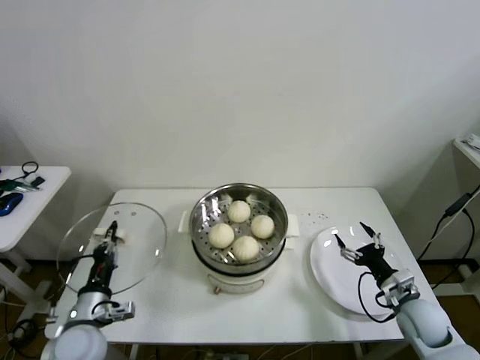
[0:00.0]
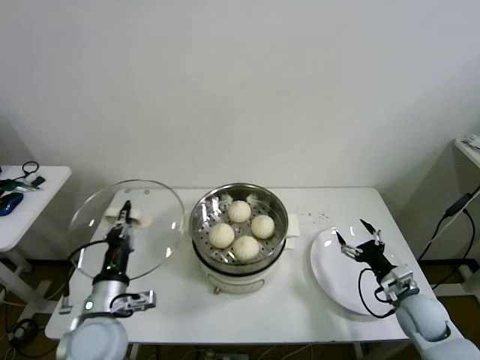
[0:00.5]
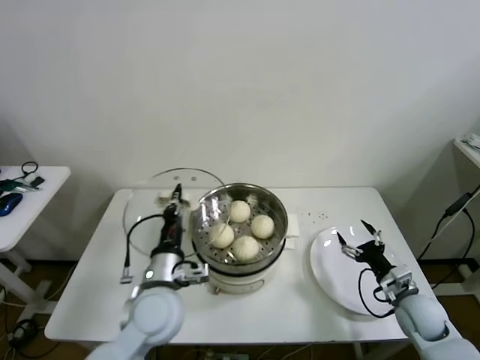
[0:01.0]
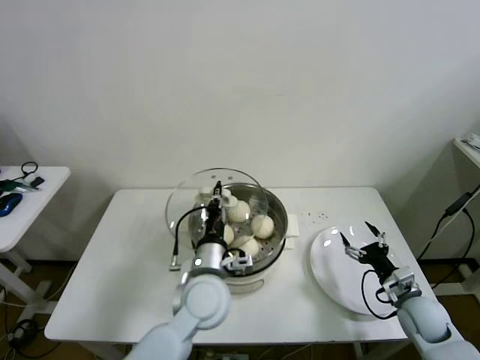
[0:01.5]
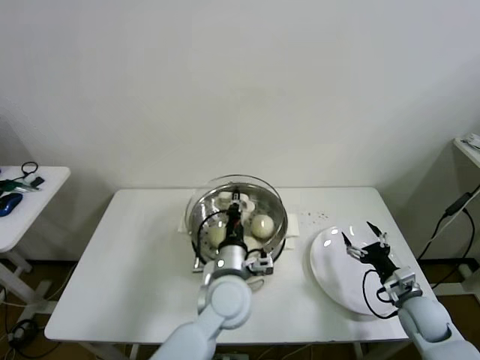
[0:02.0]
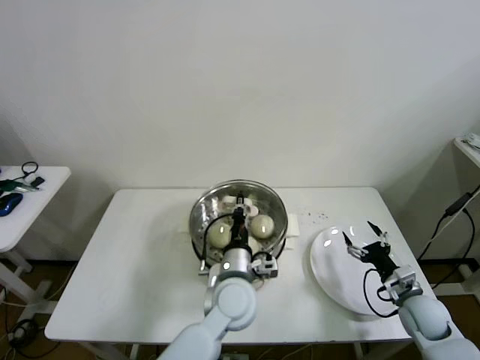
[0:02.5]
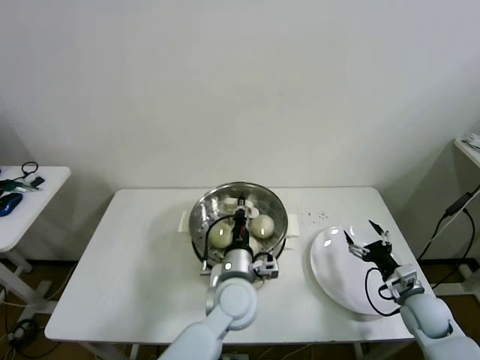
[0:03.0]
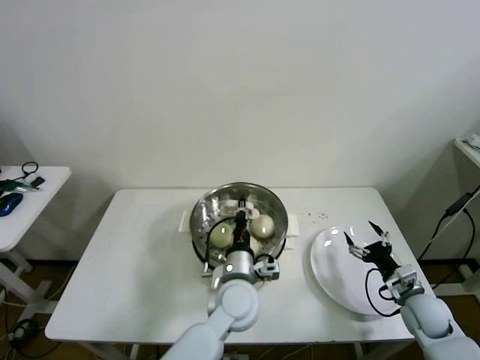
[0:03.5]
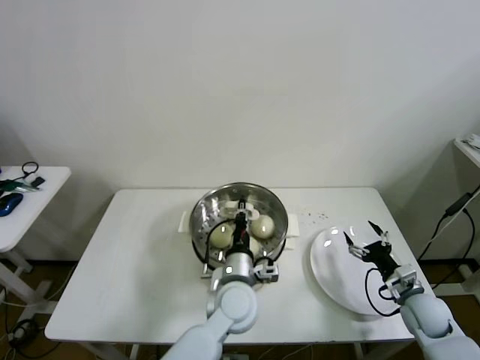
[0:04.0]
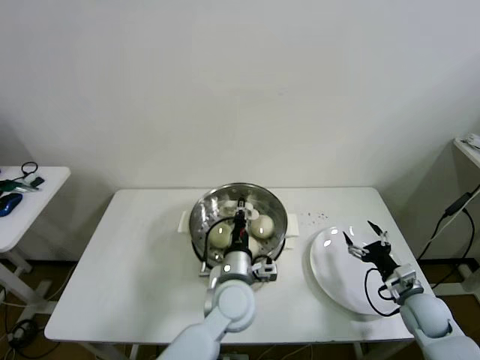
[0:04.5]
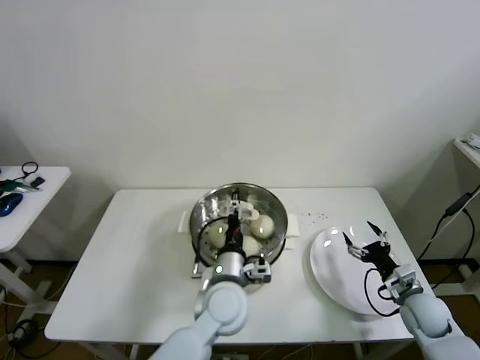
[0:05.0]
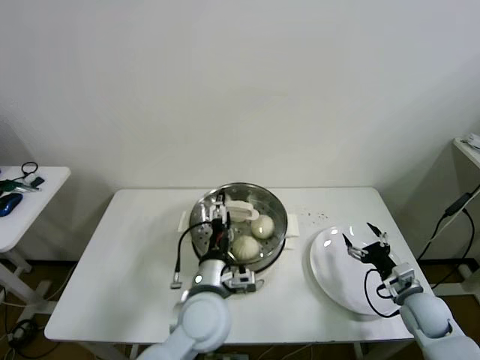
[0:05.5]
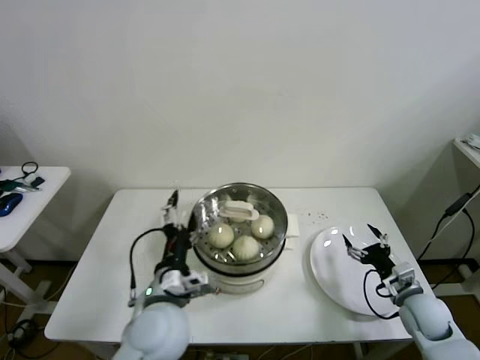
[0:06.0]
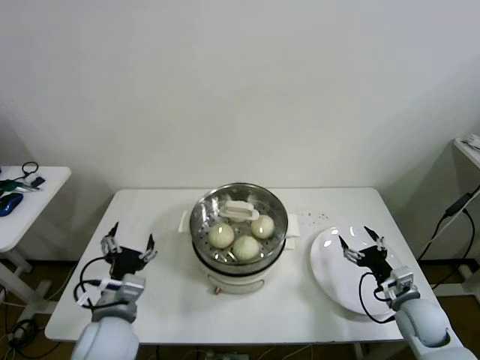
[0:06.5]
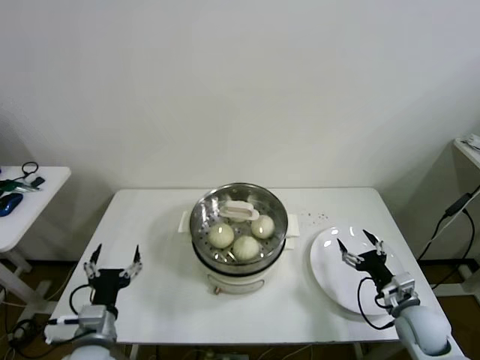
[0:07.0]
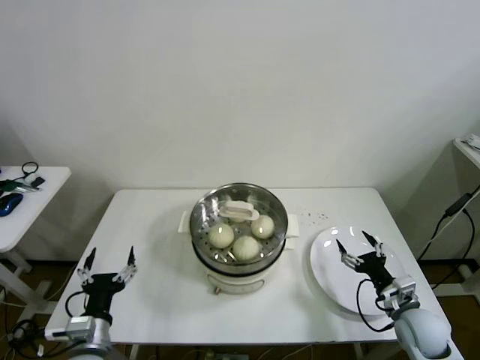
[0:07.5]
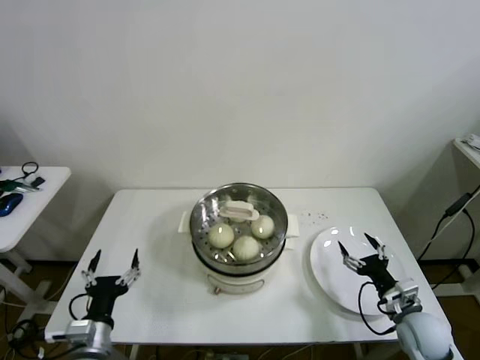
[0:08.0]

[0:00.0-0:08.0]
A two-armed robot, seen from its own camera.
Step, 0:00.0 to 0:04.5: Place the pot lid on the steamer with left gripper.
0:00.0 to 0:02.0: The left gripper moves to the right, roughly 30 cm.
0:02.0 to 0:04.0: There are only small adjustments of the grippers.
0:04.0 to 0:06.0: The left gripper travels to the left, upward and backward by about 15 cm, and opens up.
0:06.0 to 0:08.0: The left gripper moves to the left, downward and backward, about 20 cm.

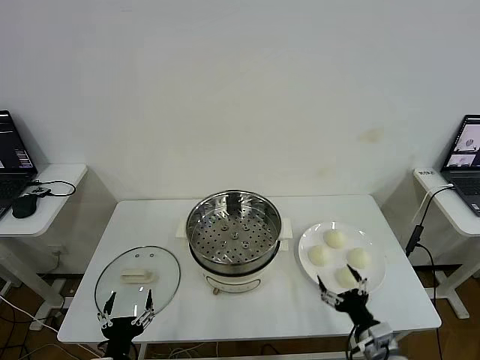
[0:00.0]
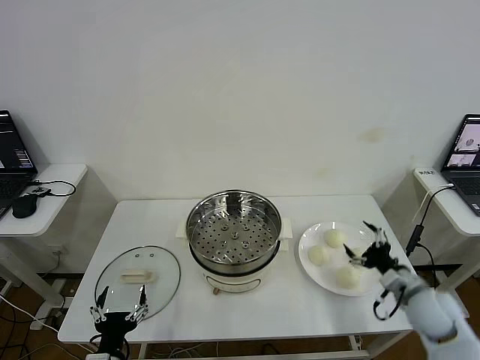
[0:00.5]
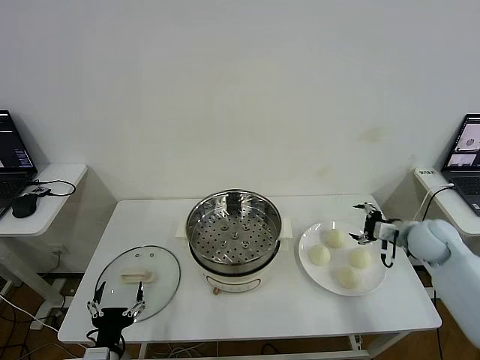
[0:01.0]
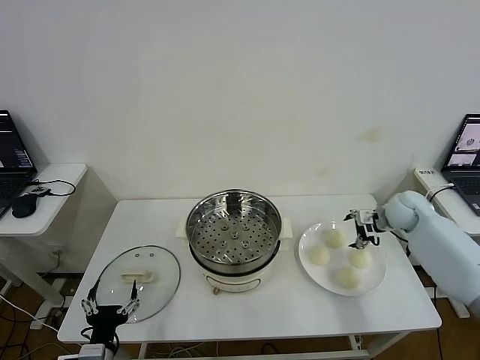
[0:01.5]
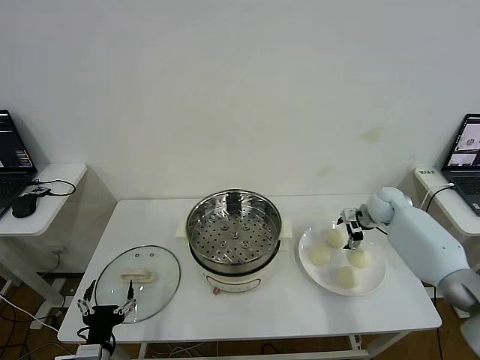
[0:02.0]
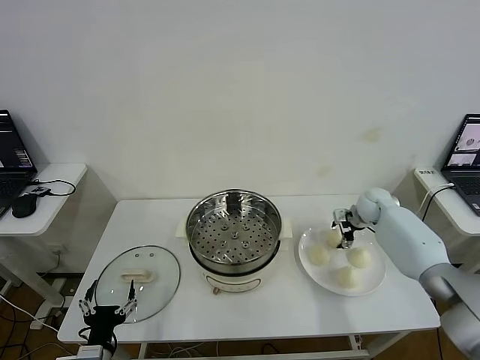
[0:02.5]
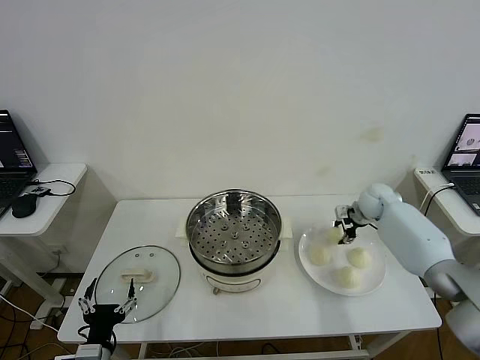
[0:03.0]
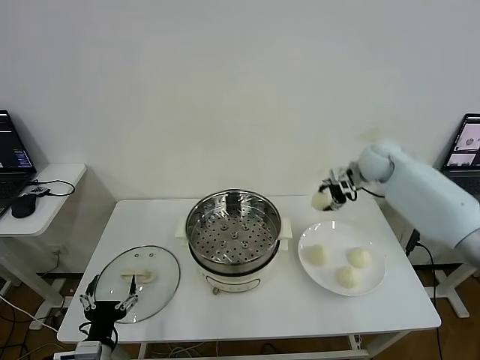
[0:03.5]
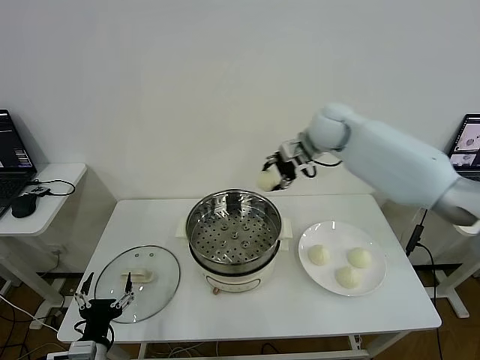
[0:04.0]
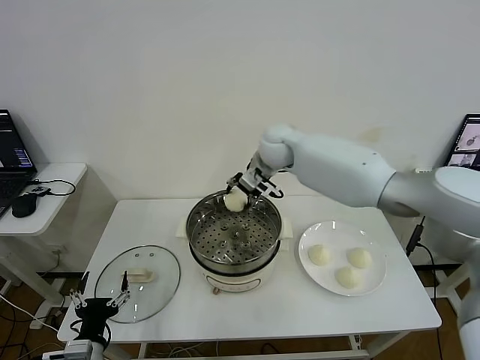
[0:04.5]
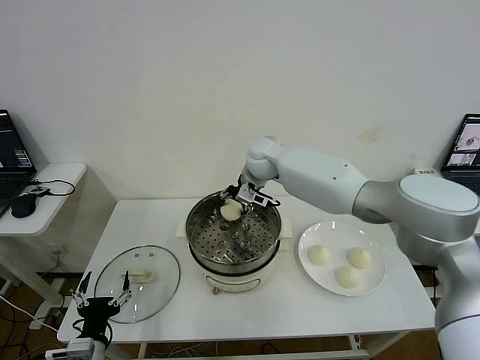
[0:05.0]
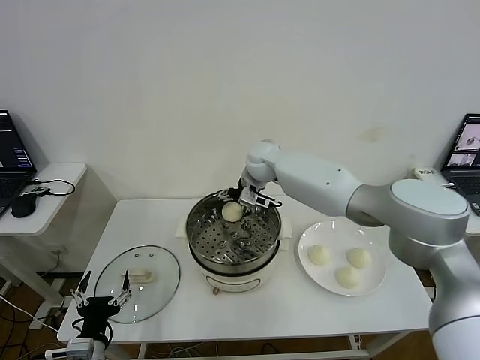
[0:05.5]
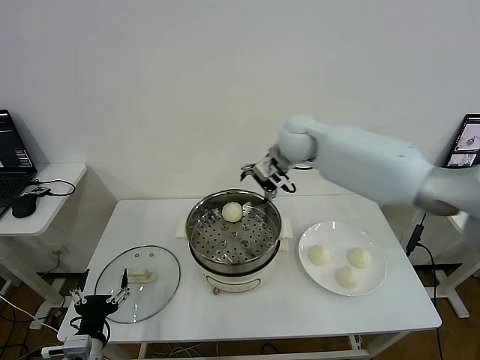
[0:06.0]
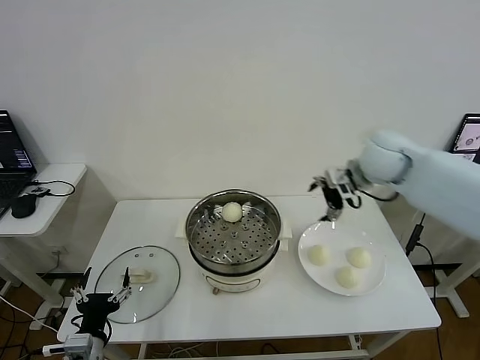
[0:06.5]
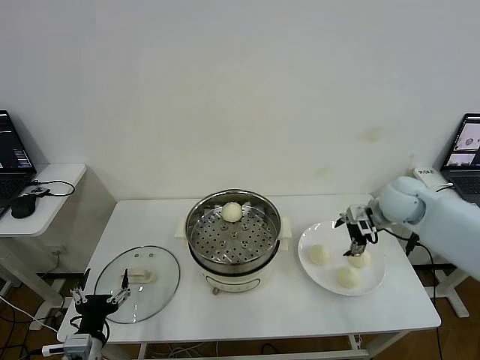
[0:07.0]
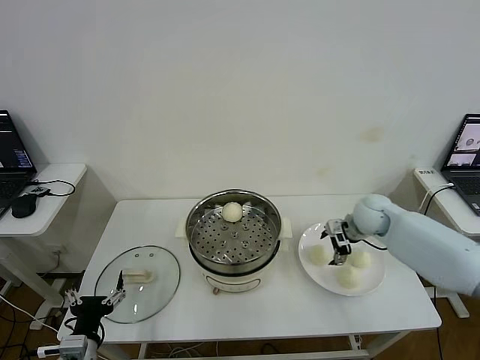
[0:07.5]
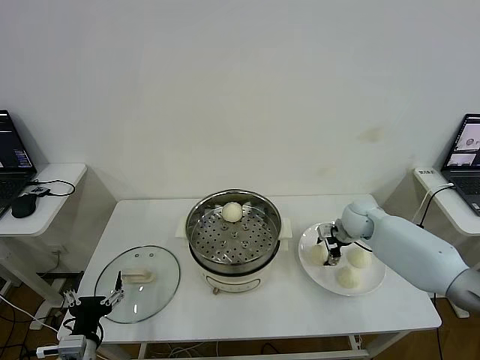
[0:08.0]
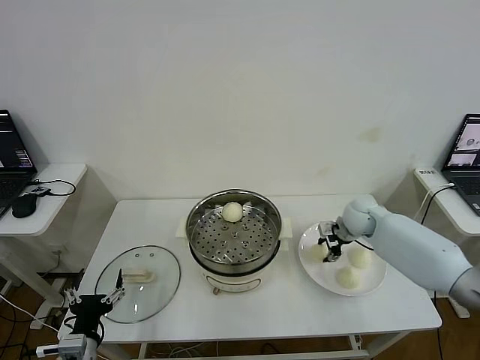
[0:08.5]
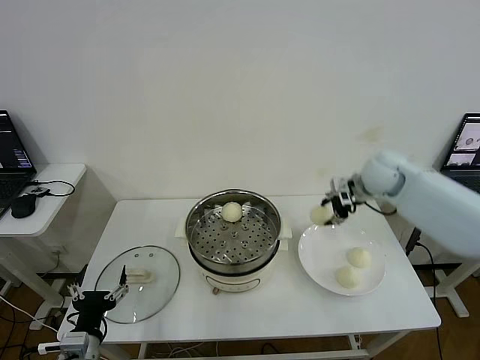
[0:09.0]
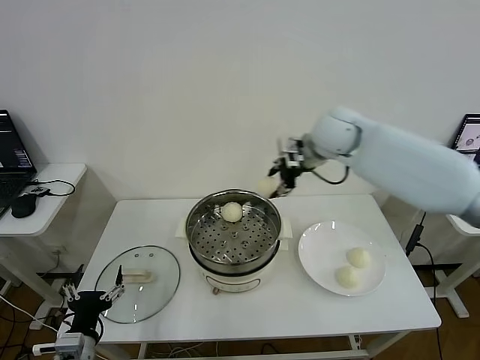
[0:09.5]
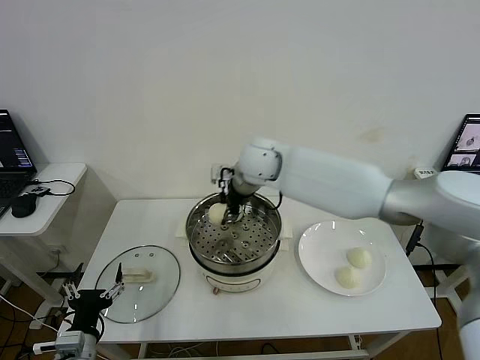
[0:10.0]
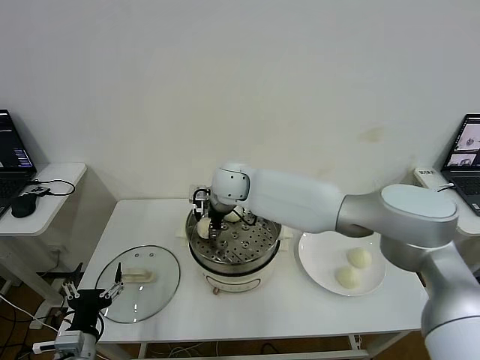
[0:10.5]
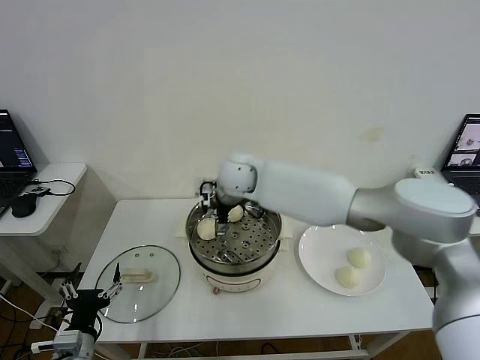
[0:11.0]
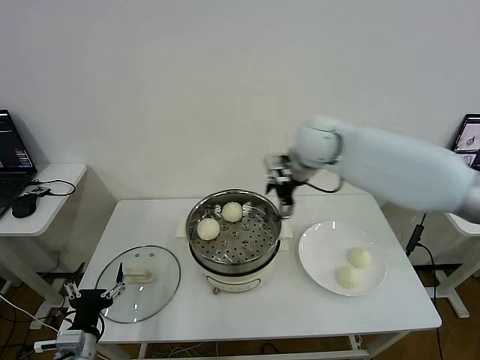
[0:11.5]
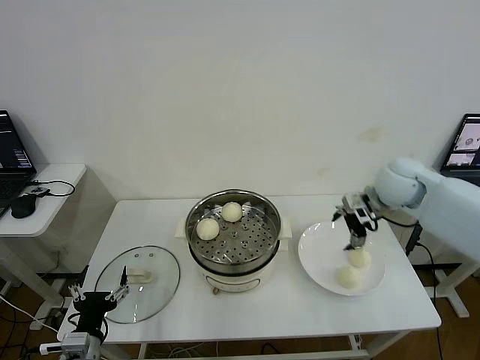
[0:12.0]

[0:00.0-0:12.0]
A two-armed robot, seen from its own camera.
Step, 0:00.0 to 0:02.5: Grasp the baozi in the plate with right gripper.
Step, 0:03.0 to 0:05.0: Place the baozi on the steamer with right gripper.
Step, 0:05.5 to 0:08.0: Grasp the baozi in the plate with right gripper.
Step, 0:08.5 to 0:10.5: Place the baozi on the steamer with right gripper.
0:02.0 to 0:04.0: The right gripper is displaced to the left and upward by some 30 cm, and closes up.
0:04.0 to 0:06.0: The right gripper travels to the left and back again, approximately 10 cm each way, and opens up.
0:06.0 to 0:08.0: The right gripper goes roughly 25 cm downward and to the right, and closes its fingers.
0:08.0 to 0:10.0: The right gripper is displaced to the left and upward by about 35 cm, and closes up.
0:10.0 to 0:12.0: The right gripper moves to the right, roughly 30 cm, and opens up.

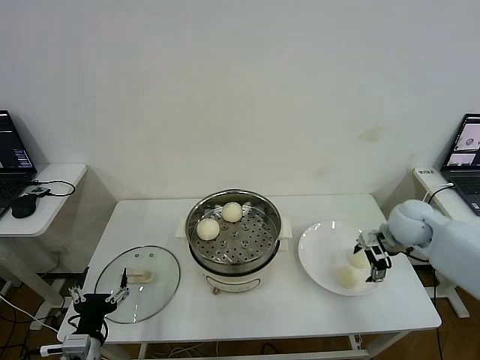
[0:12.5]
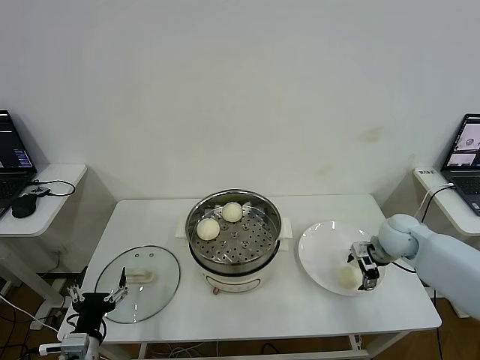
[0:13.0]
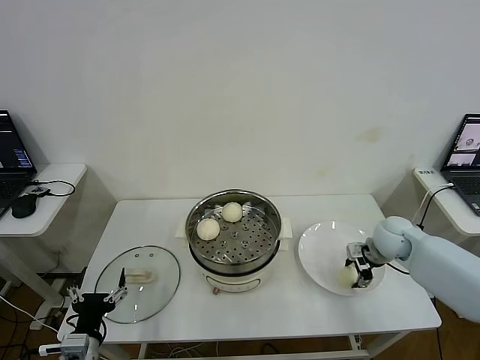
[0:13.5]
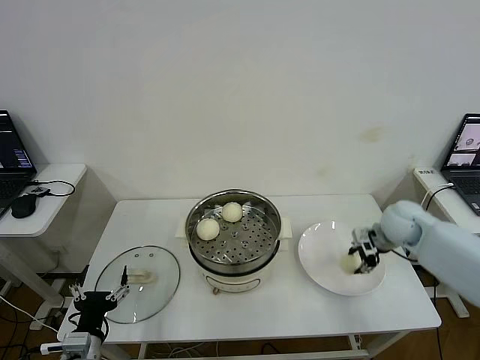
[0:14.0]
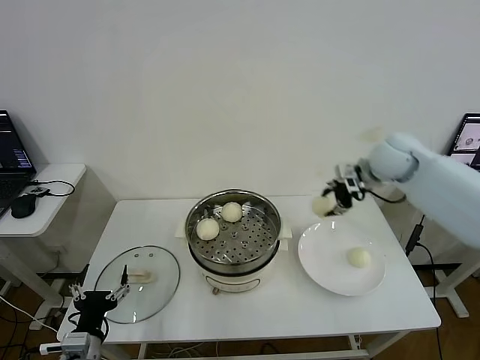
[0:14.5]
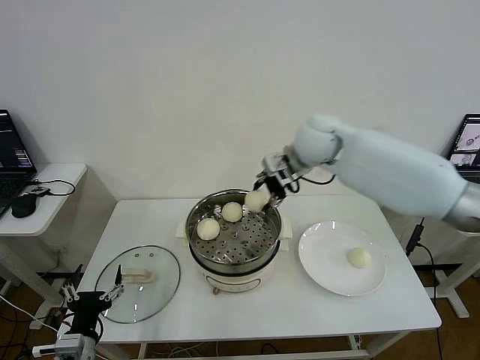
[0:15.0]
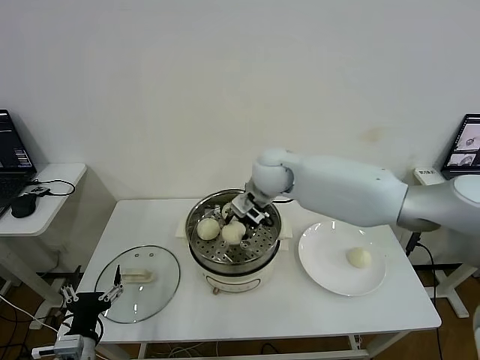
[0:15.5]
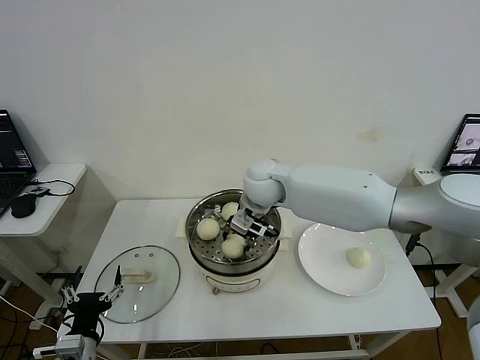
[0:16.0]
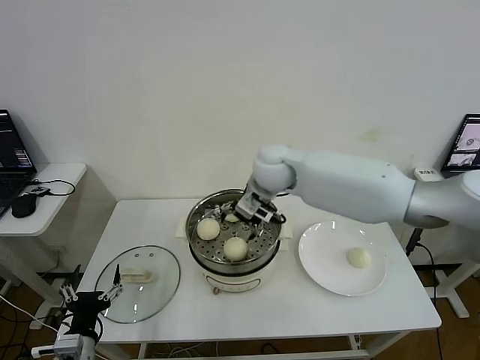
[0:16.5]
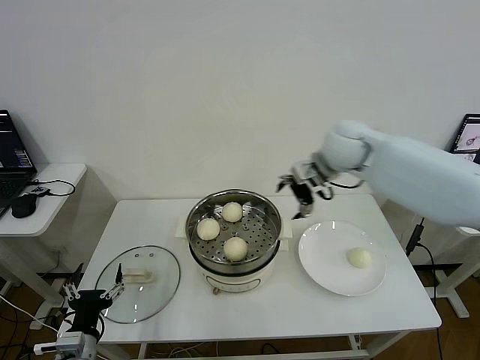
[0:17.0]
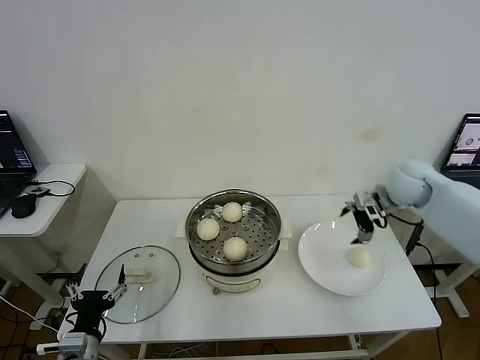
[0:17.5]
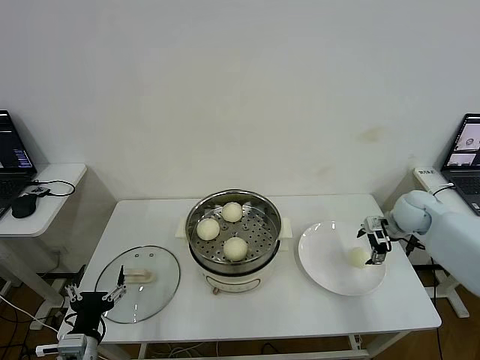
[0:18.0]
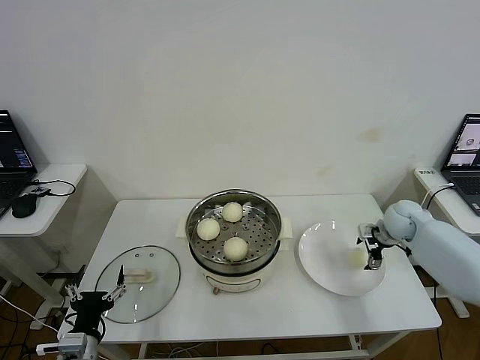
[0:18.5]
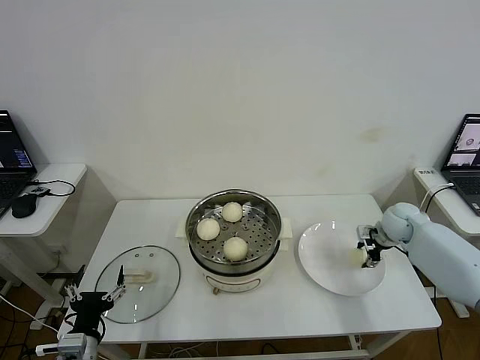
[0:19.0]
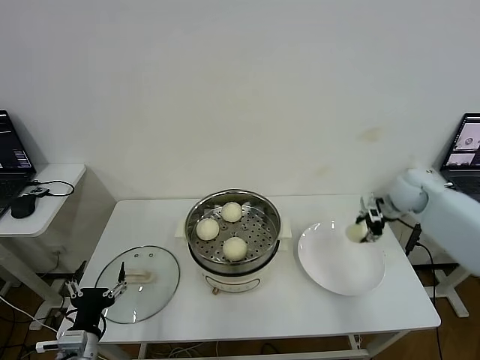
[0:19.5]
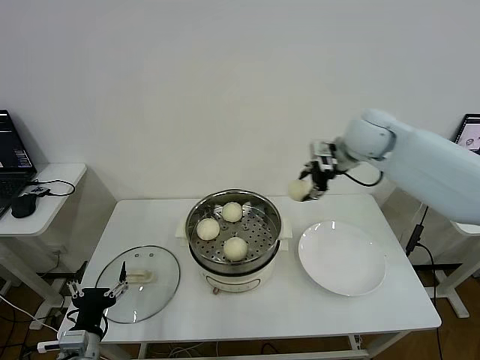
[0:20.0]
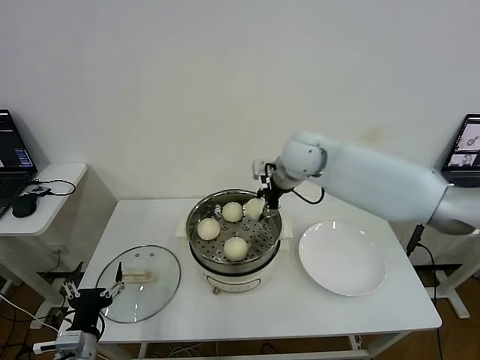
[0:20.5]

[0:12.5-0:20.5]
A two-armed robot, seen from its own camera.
Step, 0:14.0 to 0:16.0: Place the baozi on the steamer with right gripper.
Step, 0:16.5 to 0:18.5: Grasp the baozi in the plate with right gripper.
0:12.5 to 0:14.5: The right gripper is displaced upward, to the left and forward by some 20 cm, and closes its fingers.
0:14.5 to 0:16.5: The right gripper goes roughly 25 cm to the left, and opens up.
0:16.5 to 0:18.5: The right gripper heads to the right and downward, covering some 40 cm.
0:18.5 to 0:20.5: The right gripper travels to the left and upward by about 35 cm, and closes up.
